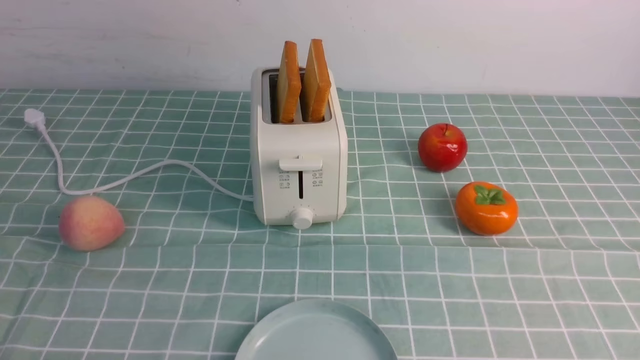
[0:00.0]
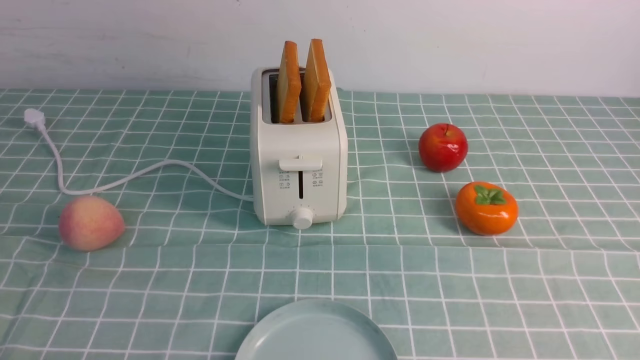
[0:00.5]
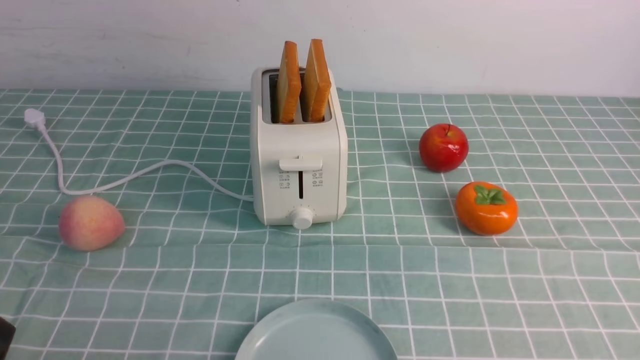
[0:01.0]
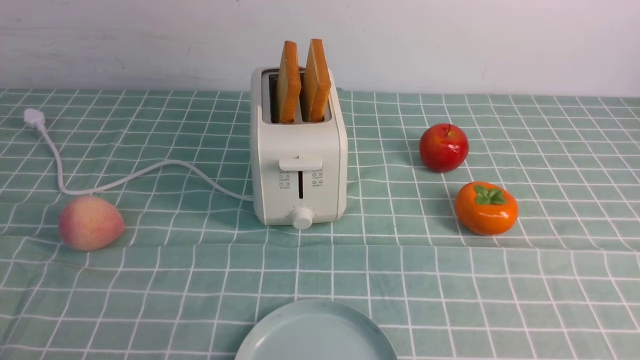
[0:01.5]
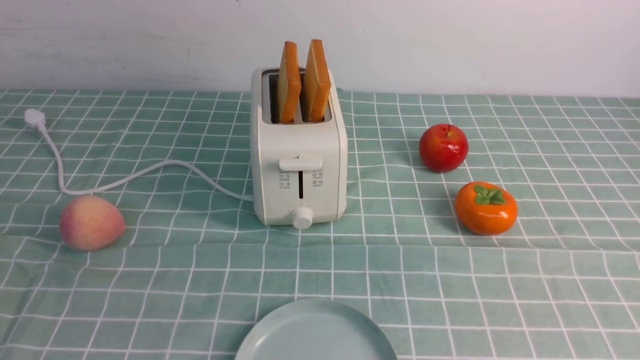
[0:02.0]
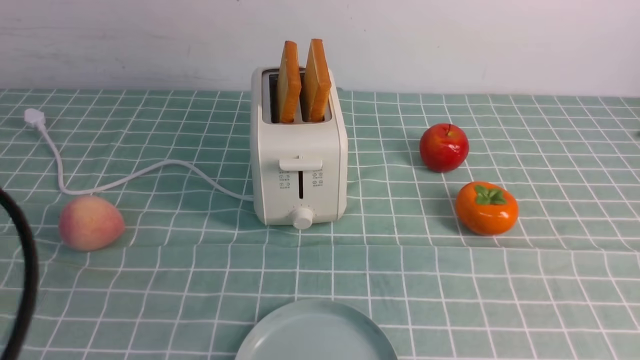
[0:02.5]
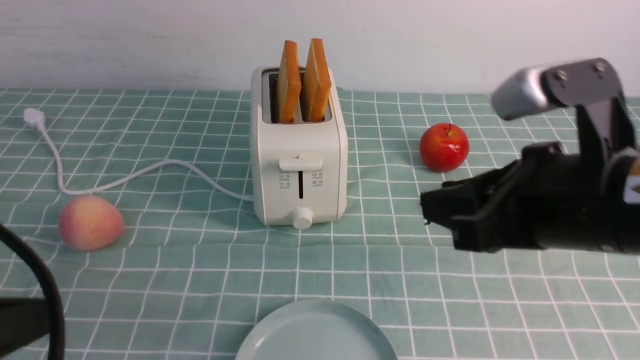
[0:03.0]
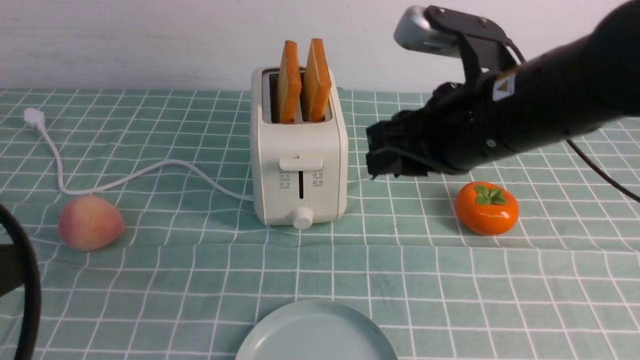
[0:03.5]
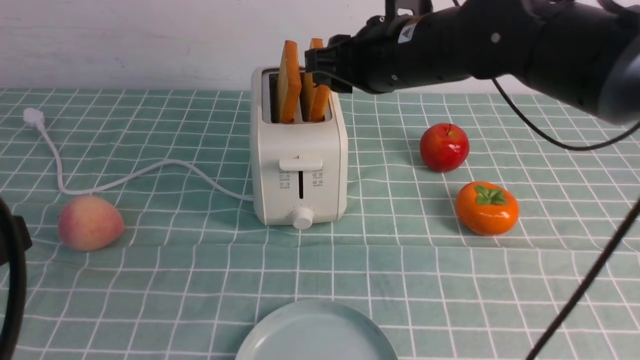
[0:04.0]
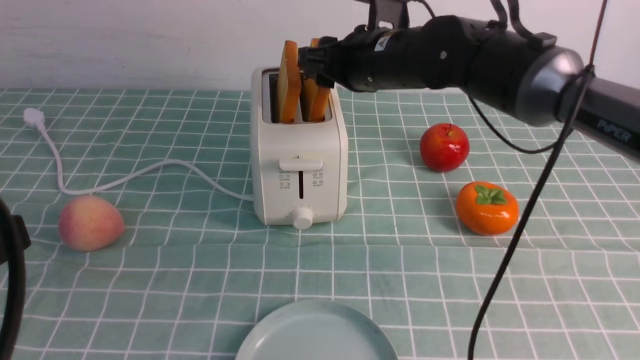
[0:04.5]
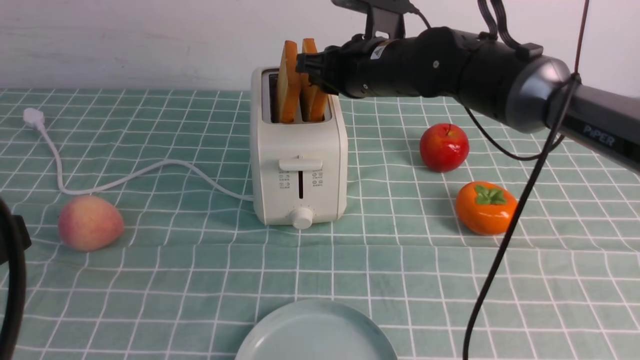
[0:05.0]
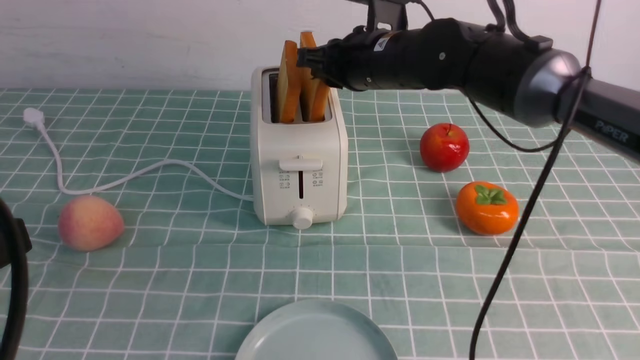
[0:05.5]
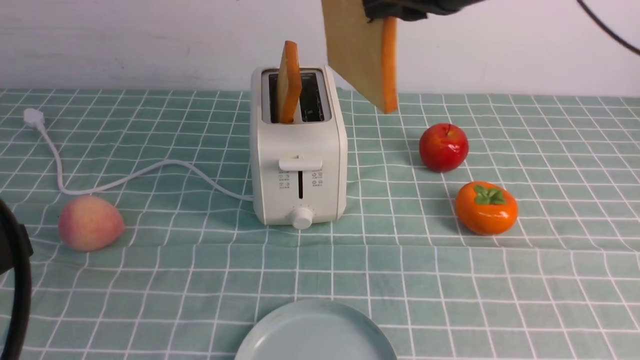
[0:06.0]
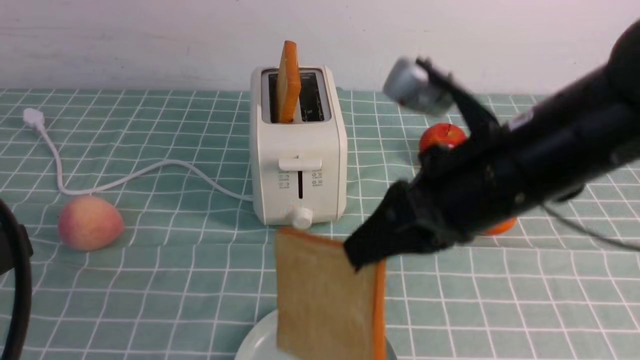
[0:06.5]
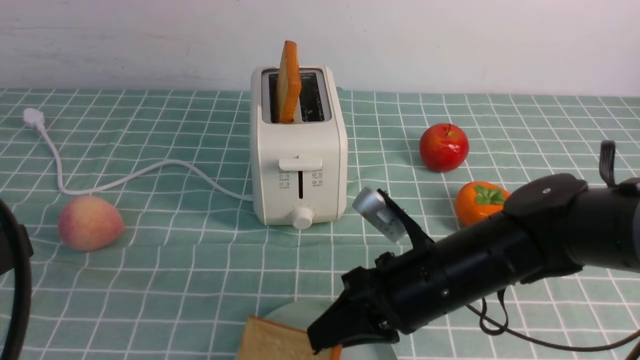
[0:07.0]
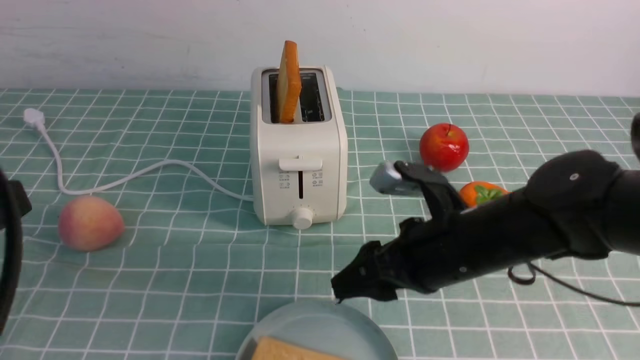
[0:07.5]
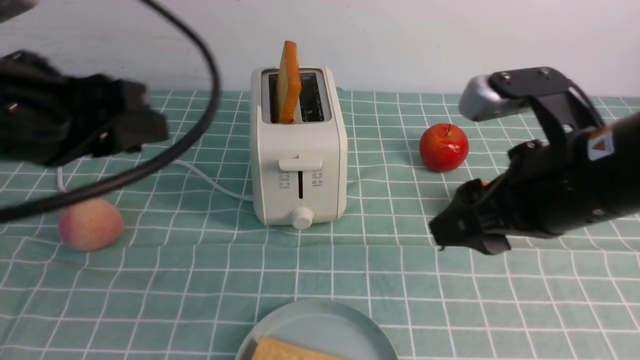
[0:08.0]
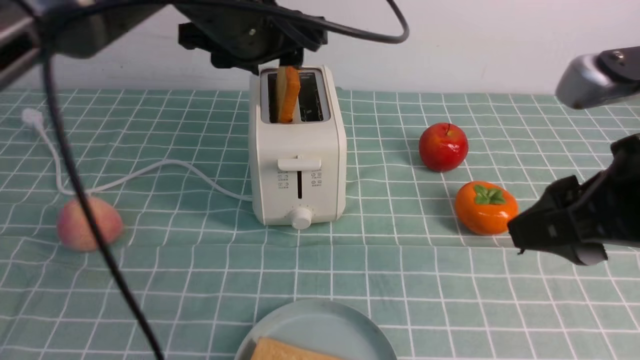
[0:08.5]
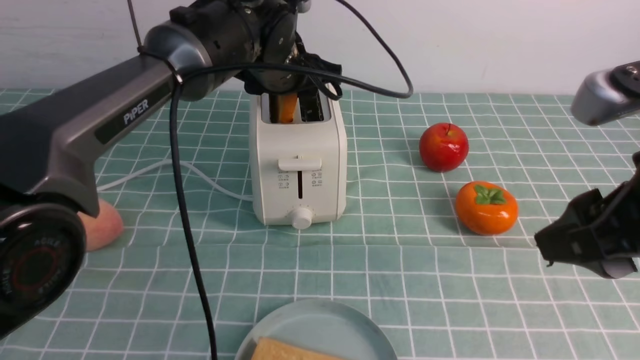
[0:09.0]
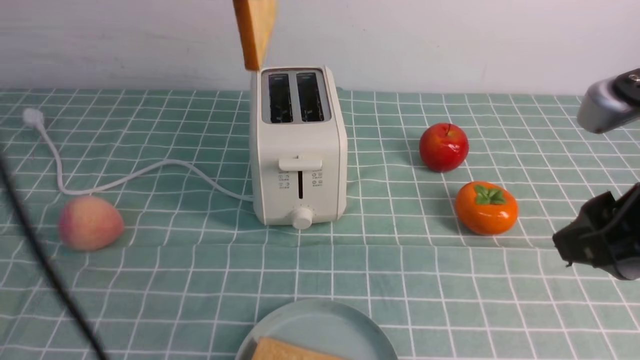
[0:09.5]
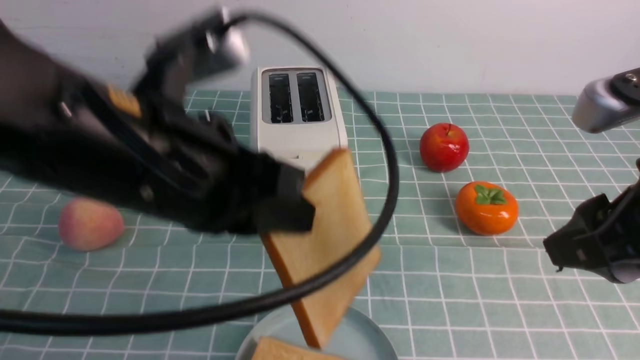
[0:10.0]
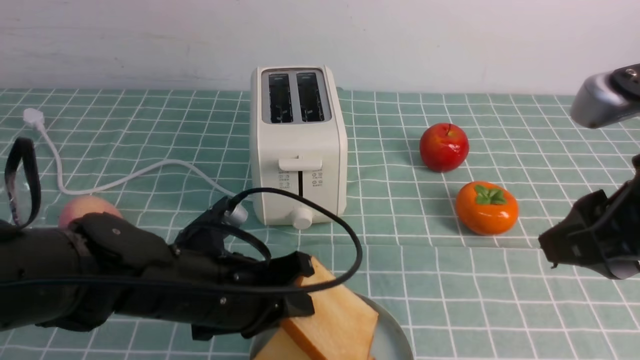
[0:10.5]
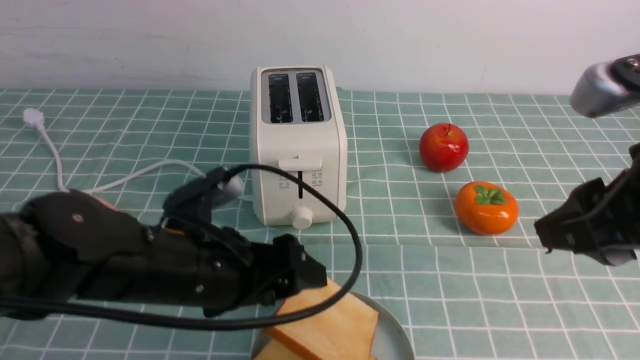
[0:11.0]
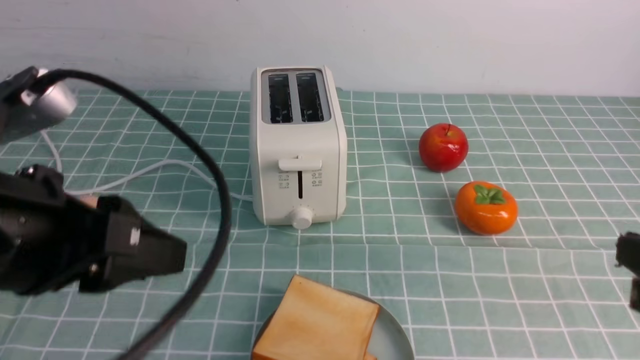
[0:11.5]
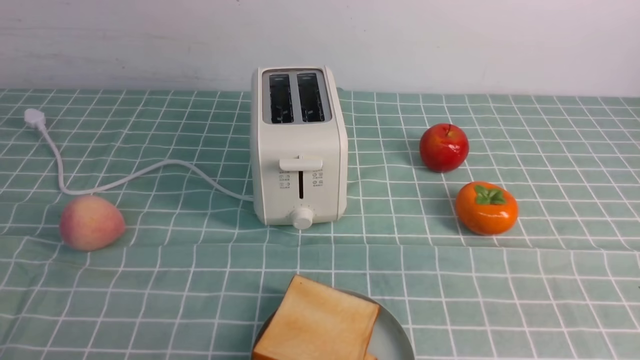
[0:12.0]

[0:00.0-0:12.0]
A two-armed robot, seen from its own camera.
Task of the whole recording: take toasted bread from bread machine on blue coffee table place on plate.
Step, 0:00.0 to 0:05.5: use the right arm to take out a slice of bread.
Step, 0:06.0 to 0:07.5: use the right arm to put a slice of bread into the plate.
Step, 0:08.0 to 0:09.5: use the left arm to take out a slice of bread.
Step, 0:10.0 to 0:11.0: use the left arm to put a slice of bread into the empty plate.
0:02.0 to 0:04.0: The right gripper shifts roughly 40 cm forward and to the left; the left gripper goes approximately 5 cm forward.
0:04.0 to 0:06.0: The right gripper moves upward and backward, approximately 10 cm, and closes its fingers.
0:06.0 to 0:08.0: The right gripper moves backward, downward and to the right, about 15 cm, and opens its fingers. The left gripper shifts about 15 cm forward.
0:08.0 to 0:10.0: The left gripper shifts some 10 cm to the right, travels forward and back again, about 20 cm each way, and closes its fingers; the right gripper shifts by roughly 10 cm.
0:10.0 to 0:12.0: The left gripper heads backward and to the left, covering about 20 cm, and opens and closes again. The right gripper moves downward, backward and to the right, some 15 cm, and closes its fingers.
